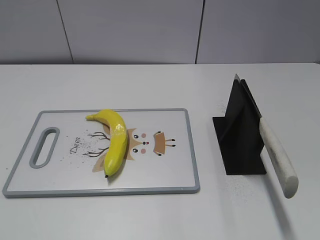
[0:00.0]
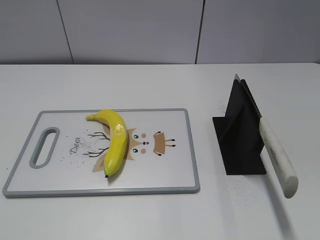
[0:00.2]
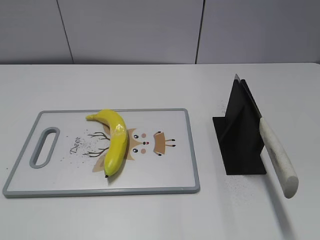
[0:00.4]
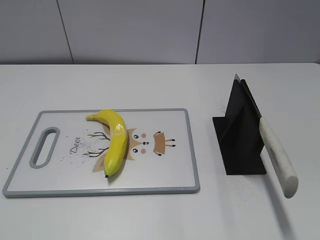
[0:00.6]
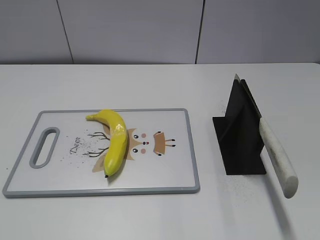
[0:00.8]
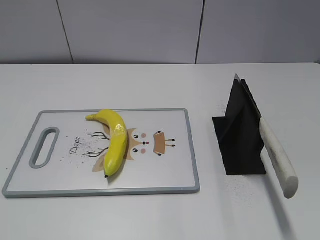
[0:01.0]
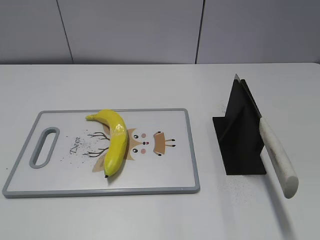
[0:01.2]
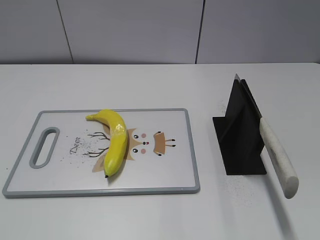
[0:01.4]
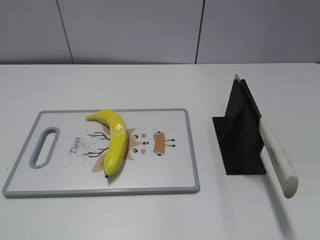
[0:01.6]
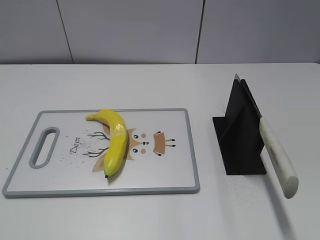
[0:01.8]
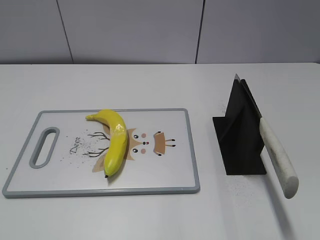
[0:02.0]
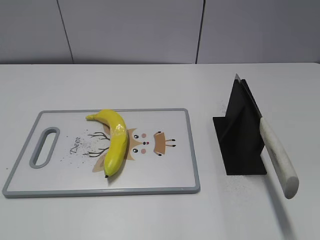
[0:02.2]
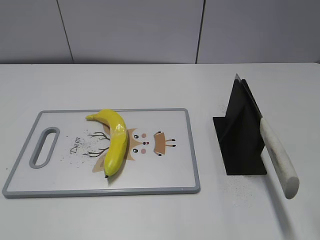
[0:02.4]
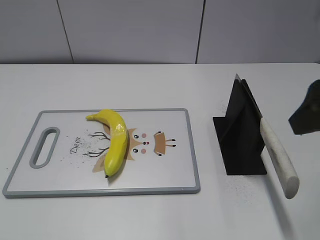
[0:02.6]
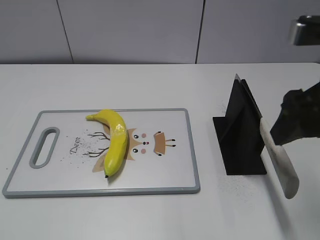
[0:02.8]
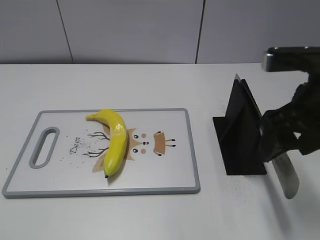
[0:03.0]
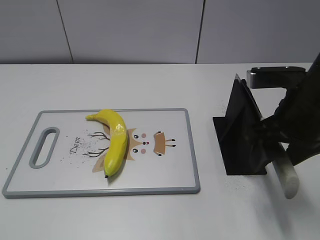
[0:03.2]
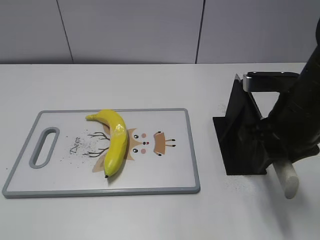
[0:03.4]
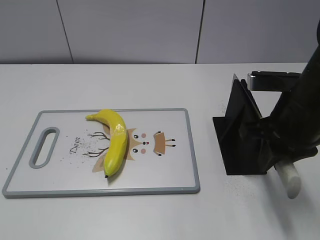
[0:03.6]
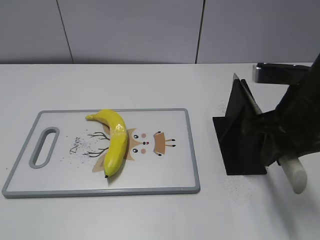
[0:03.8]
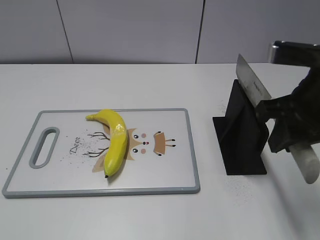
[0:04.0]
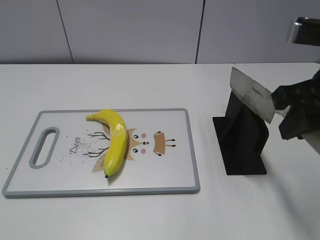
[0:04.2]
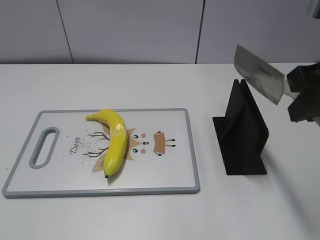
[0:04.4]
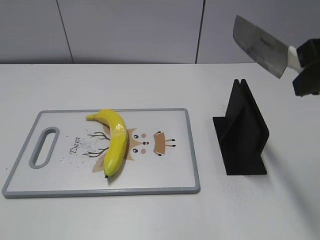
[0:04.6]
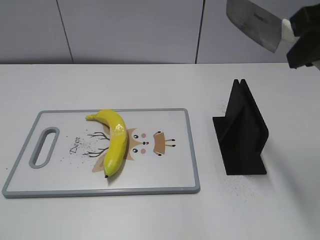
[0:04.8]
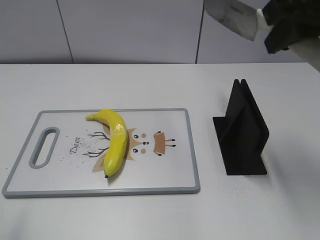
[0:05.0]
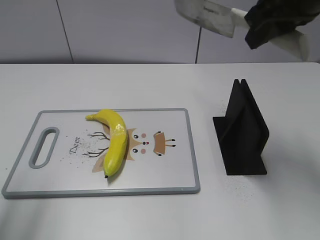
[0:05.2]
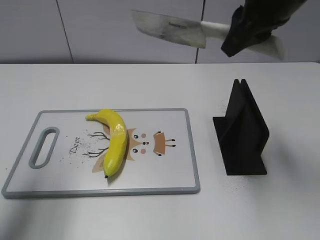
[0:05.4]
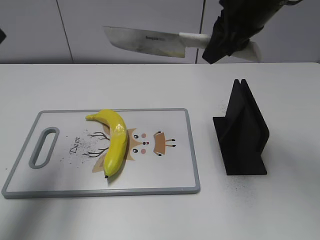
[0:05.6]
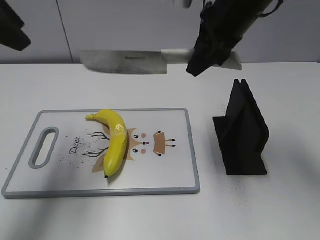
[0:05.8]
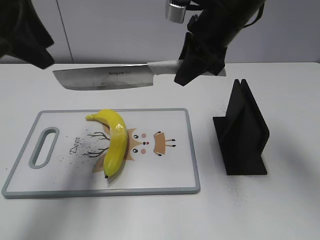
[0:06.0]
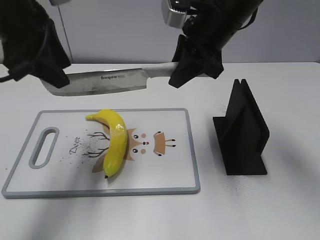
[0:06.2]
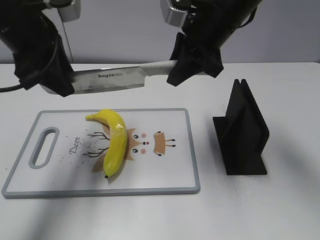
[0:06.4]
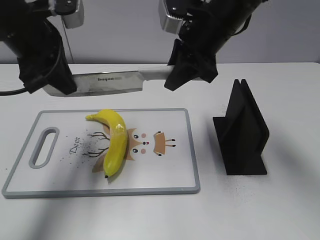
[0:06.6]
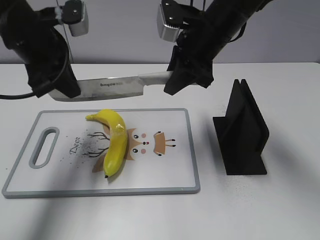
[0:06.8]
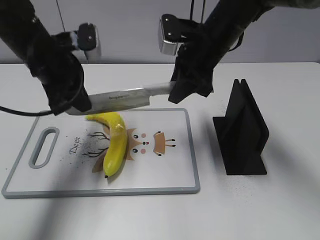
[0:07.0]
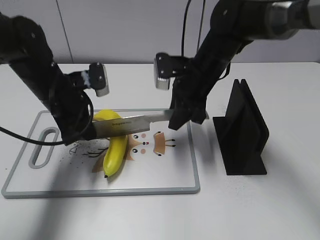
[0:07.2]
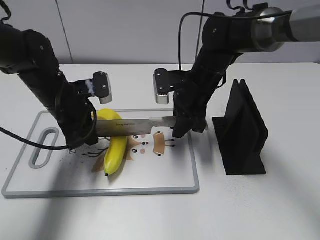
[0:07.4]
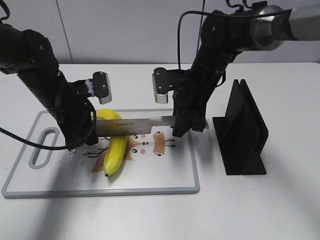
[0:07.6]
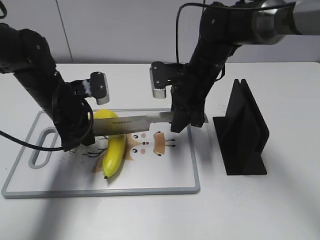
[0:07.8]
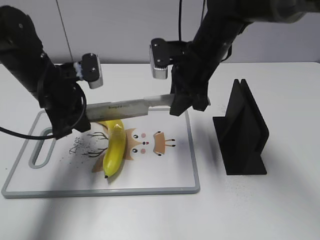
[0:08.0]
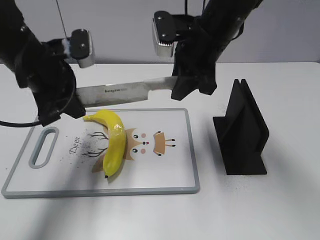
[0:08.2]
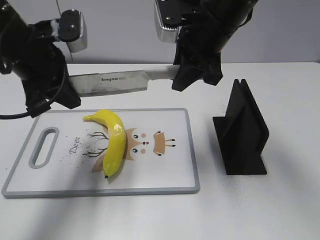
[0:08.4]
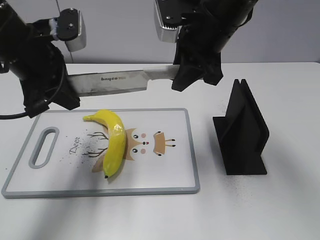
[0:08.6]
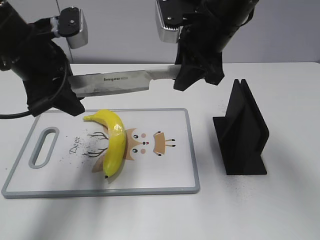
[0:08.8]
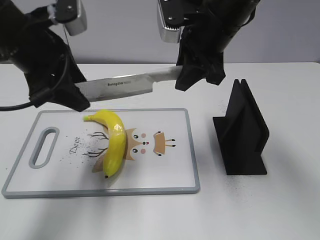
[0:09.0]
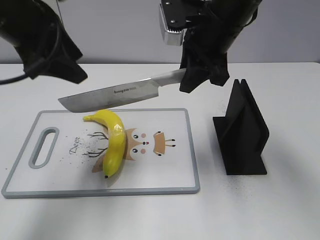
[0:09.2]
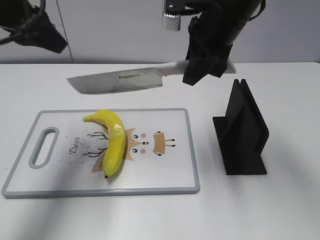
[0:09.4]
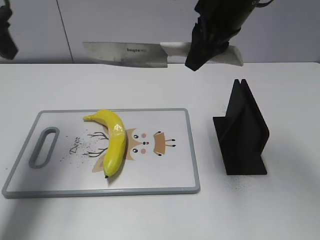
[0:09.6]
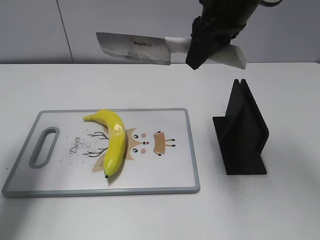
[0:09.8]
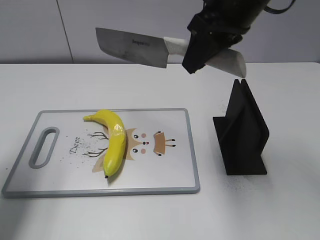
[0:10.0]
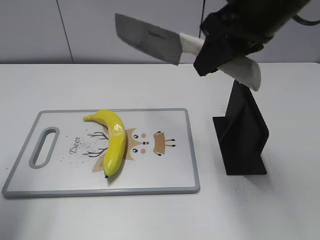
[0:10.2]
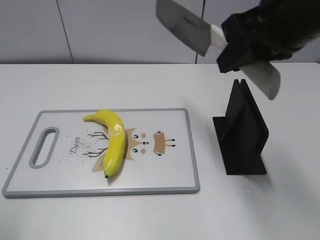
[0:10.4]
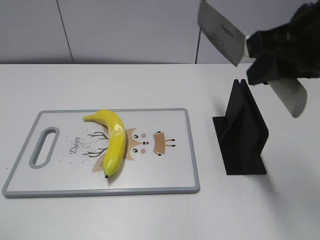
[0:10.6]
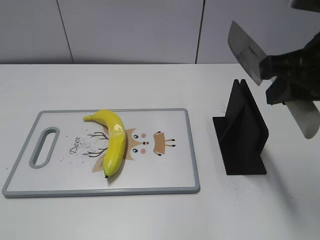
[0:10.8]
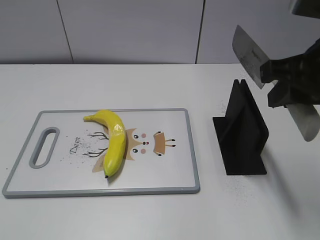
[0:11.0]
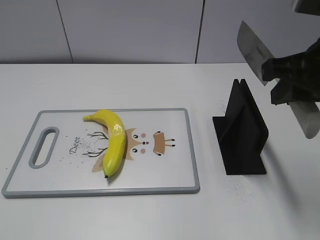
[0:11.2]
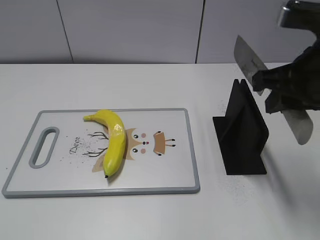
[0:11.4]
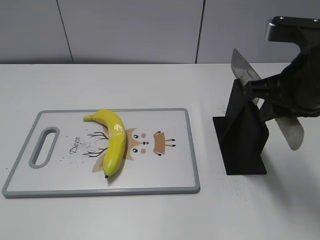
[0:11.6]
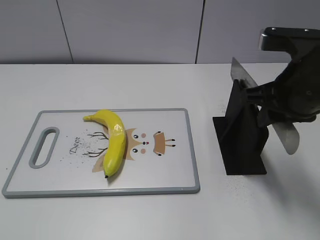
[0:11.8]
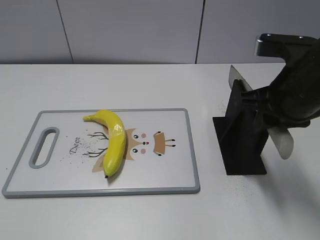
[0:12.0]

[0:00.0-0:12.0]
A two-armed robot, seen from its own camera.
Task of the whole recording: cut plastic banana.
Step, 0.0 to 4.2 s: Grab the knife handle with your right hand.
Step, 4.4 to 8.2 s: Lift the knife with your right hand.
Step, 8.4 to 9.6 s: Cut the banana with your right hand.
Step, 9.8 to 10.6 s: Lift the knife with your right hand.
1.6 to 3.0 s: The right gripper heads forward and to the left, covering about 25 cm.
3.0 to 4.4 s: The right gripper shifts roughly 5 cm upward, and closes up.
4.4 to 6.0 s: The left gripper is displaced forward by roughly 30 cm; the right gripper heads forward and to the left, covering some 20 cm.
6.0 to 7.6 s: Both grippers move downward, approximately 20 cm. The left gripper closes its fingers.
7.6 to 9.0 s: Both grippers travel together upward, roughly 15 cm. The left gripper opens.
9.0 to 10.4 s: The right gripper travels backward, upward and to the right by some 15 cm, while the left gripper travels backward and to the left by some 20 cm.
10.4 to 12.0 s: The left gripper goes some 15 cm backward; the right gripper is displaced downward by some 10 cm.

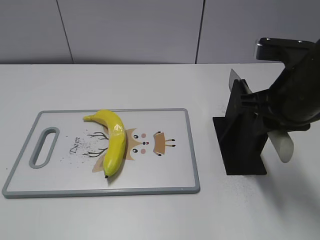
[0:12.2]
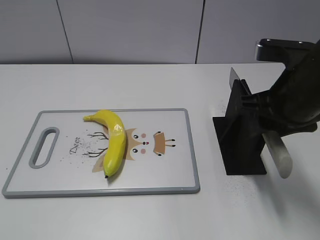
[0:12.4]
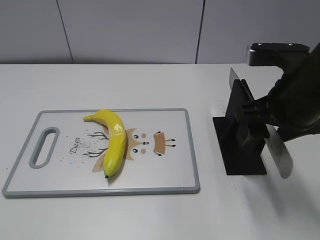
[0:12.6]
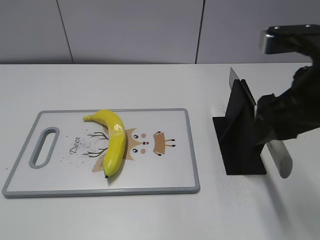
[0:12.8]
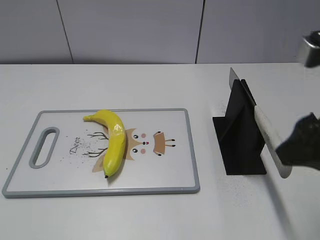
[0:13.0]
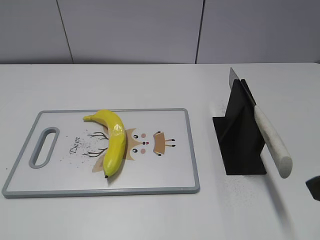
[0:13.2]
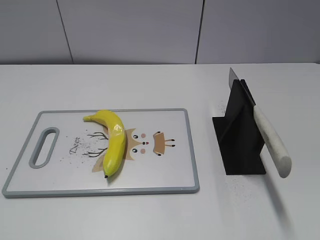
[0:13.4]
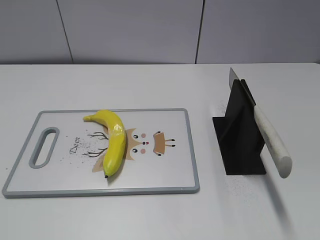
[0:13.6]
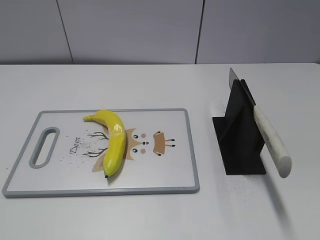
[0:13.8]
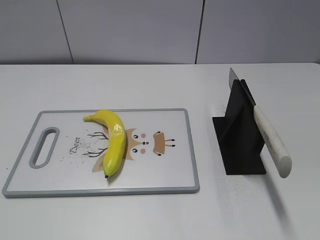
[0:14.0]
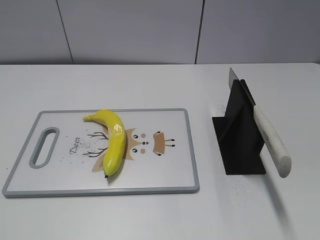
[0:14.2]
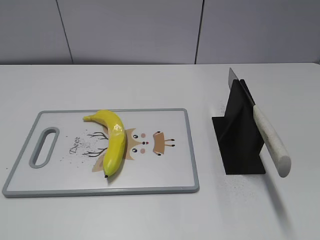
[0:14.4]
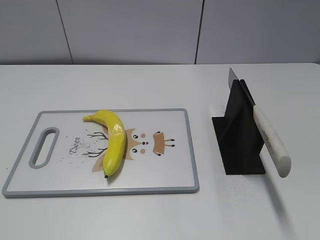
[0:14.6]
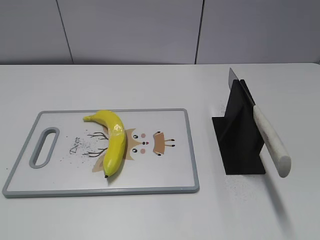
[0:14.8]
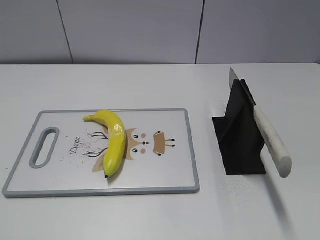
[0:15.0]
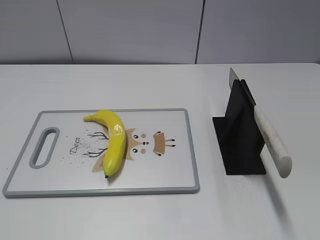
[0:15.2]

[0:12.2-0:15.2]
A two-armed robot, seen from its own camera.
Task of the whole recording: cut plastic banana.
Step, 12.2 to 15.2 s: Place the knife on the storage rack with your right hand.
12.2 to 13.8 s: The right gripper goes approximately 25 cm backward and to the right, and opens.

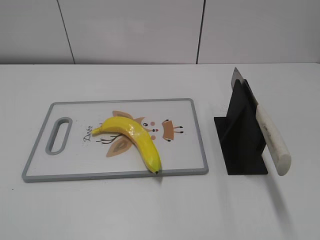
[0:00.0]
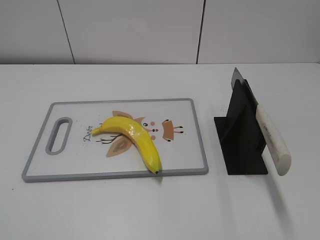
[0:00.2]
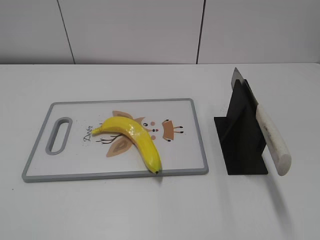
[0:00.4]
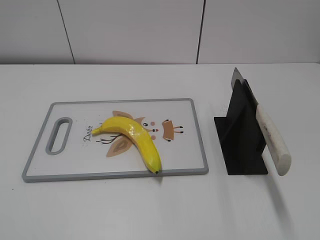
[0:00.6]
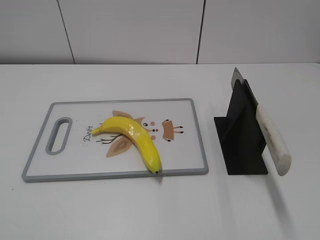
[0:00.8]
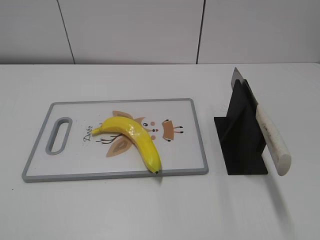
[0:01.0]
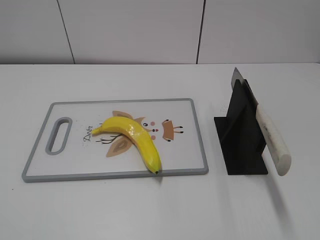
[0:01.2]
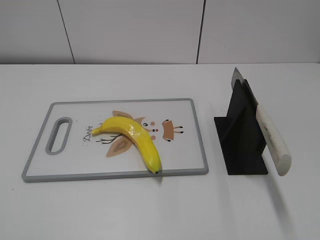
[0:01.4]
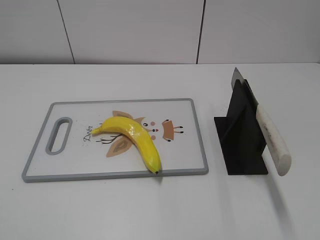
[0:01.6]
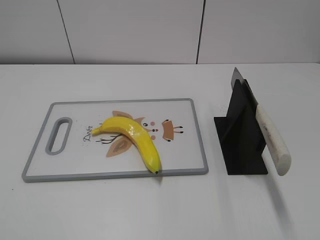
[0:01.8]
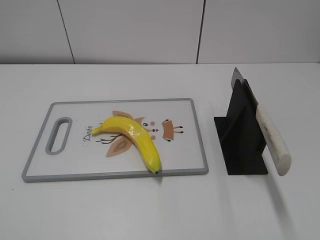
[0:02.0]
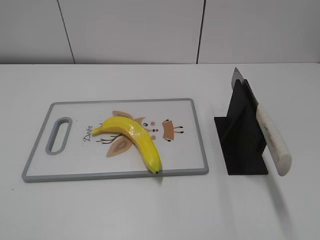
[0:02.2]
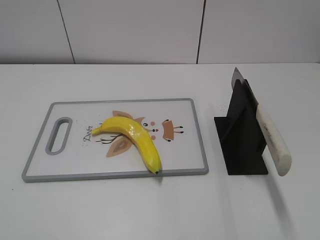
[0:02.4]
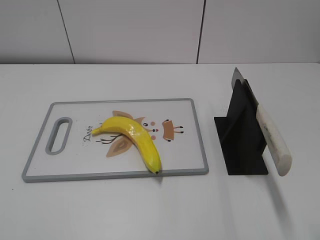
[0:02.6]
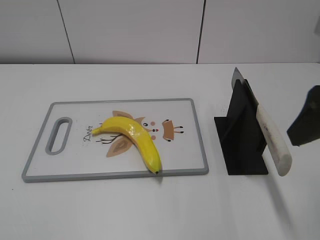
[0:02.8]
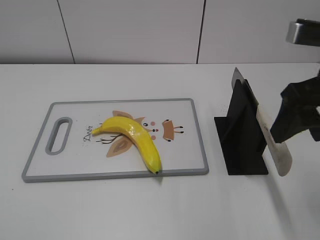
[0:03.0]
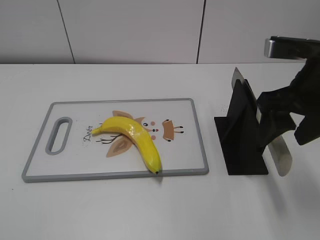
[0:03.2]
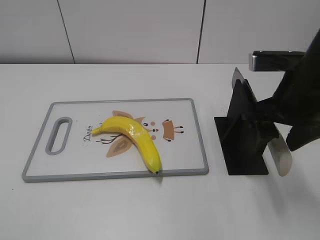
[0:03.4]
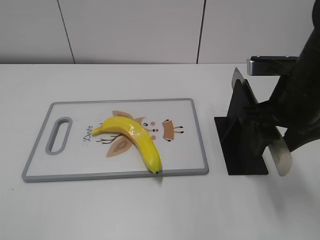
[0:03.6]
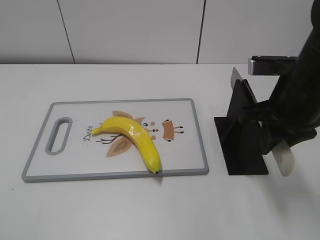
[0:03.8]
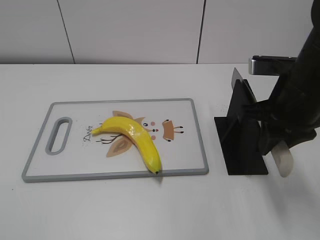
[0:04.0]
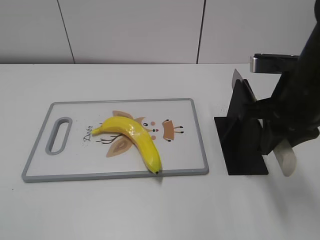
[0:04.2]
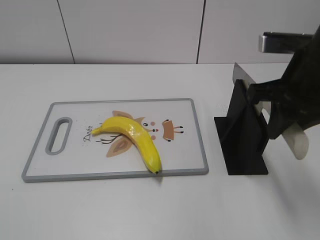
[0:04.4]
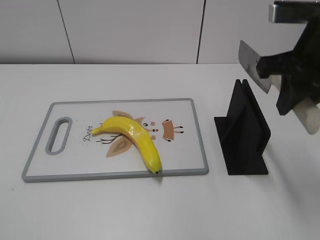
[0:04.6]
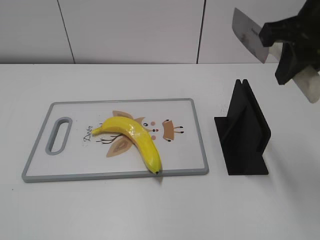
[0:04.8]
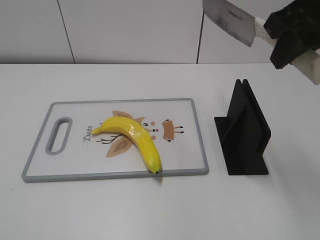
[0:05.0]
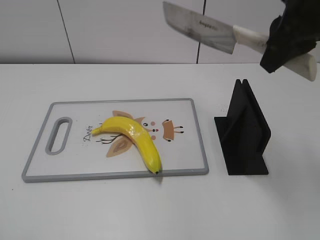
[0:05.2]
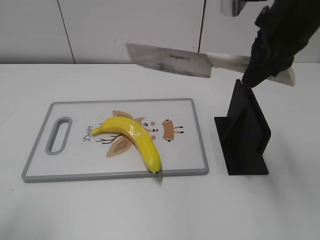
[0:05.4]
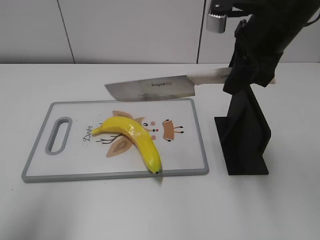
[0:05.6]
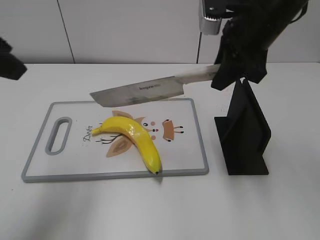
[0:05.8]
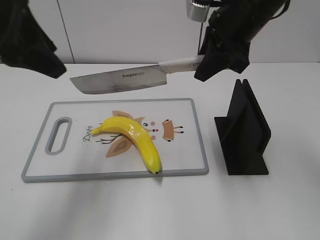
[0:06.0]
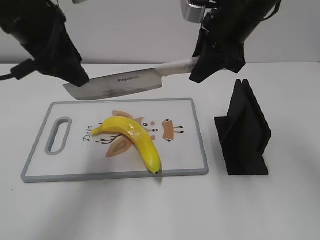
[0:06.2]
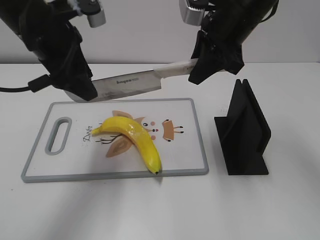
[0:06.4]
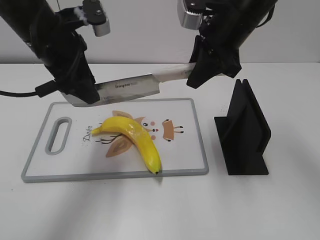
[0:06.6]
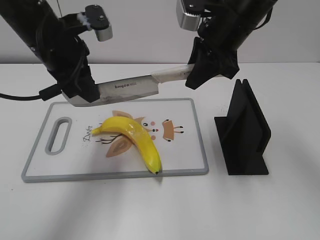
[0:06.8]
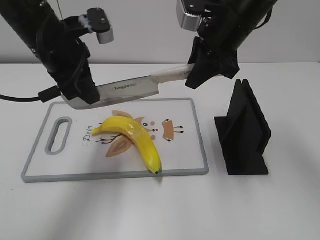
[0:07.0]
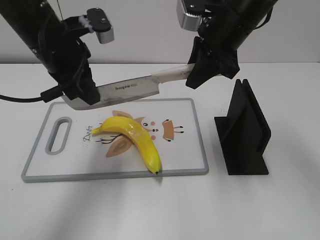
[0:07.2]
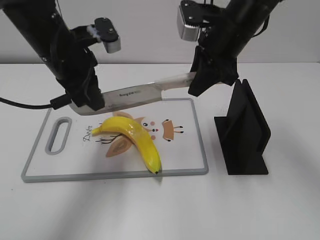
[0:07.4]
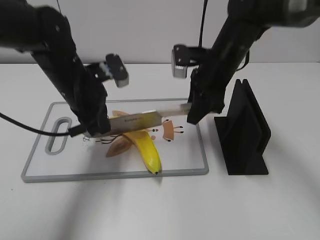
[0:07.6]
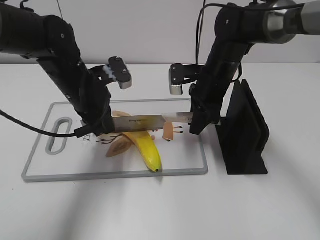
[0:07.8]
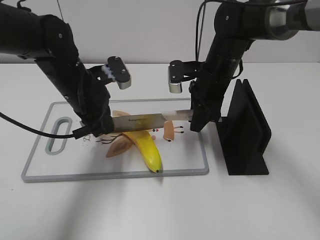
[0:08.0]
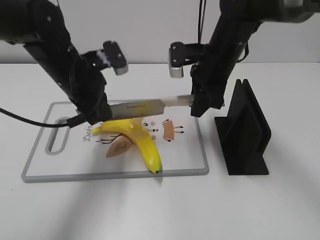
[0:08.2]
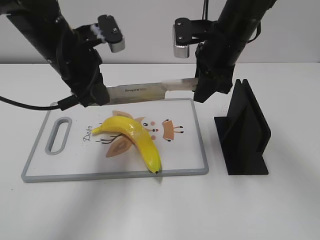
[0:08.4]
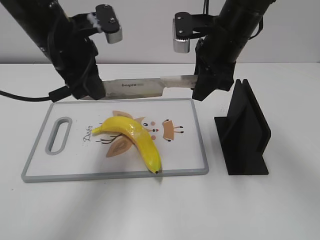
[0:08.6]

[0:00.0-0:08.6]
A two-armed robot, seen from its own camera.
Task of the whole recording: cut plastic banana.
Step, 0.0 to 4.8 s: Grab the knife handle with your right hand.
Step, 5.0 to 8.6 s: Lift the knife with your right hand.
1.4 to 2.8 s: The right gripper is displaced forward by about 20 cm.
2.8 to 4.4 s: The right gripper goes approximately 5 cm forward, and closes up.
4.4 to 5.8 s: The right gripper travels forward and to the left by about 10 cm. Meanwhile the left gripper travels forward by some 25 cm.
5.8 to 7.2 s: The left gripper shifts some 15 cm downward, forward and to the right, and closes.
7.2 to 8.6 s: The left gripper travels downward and back again, about 10 cm each way, while the right gripper goes downward and returns, approximately 15 cm each way.
